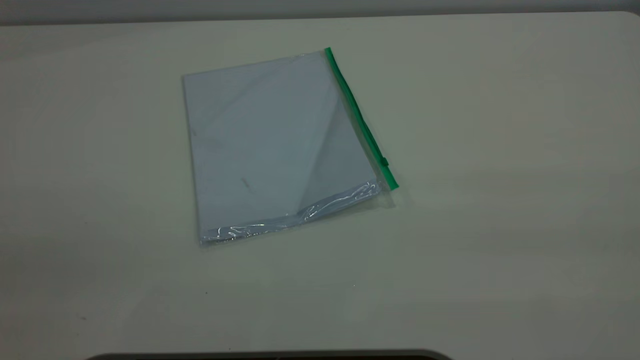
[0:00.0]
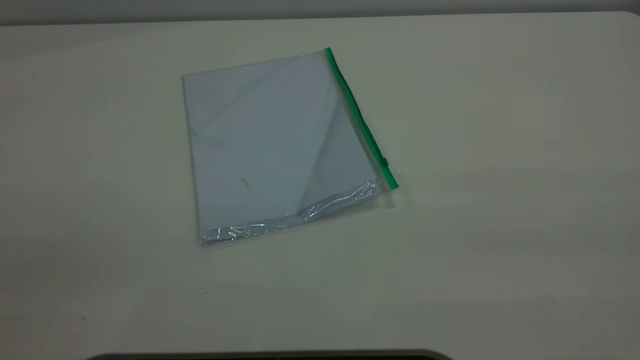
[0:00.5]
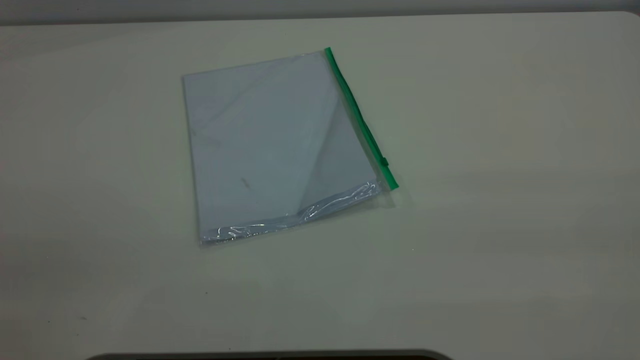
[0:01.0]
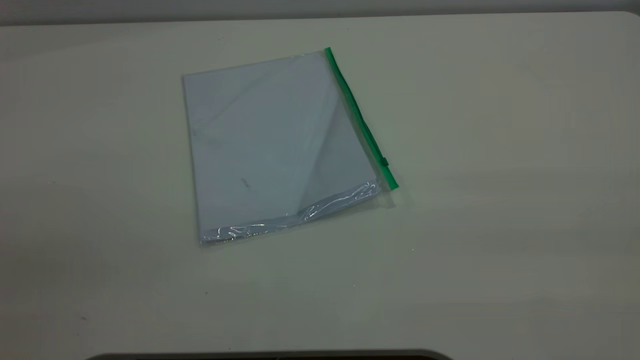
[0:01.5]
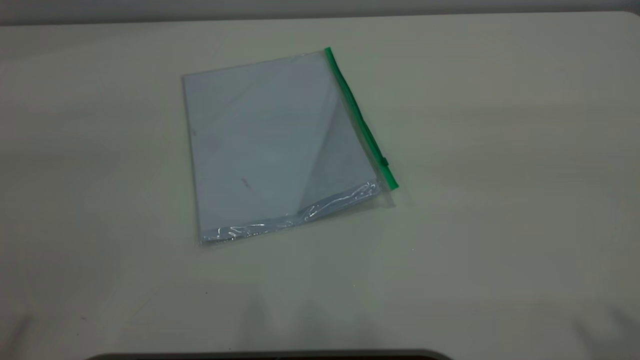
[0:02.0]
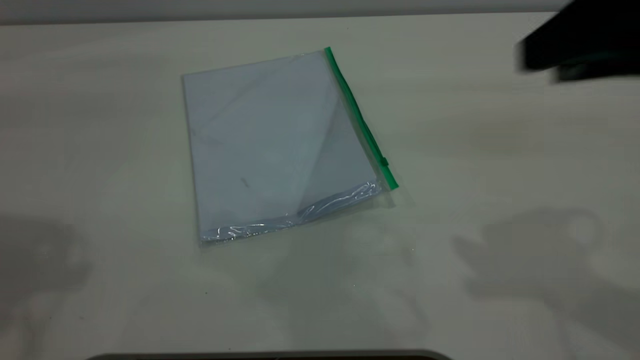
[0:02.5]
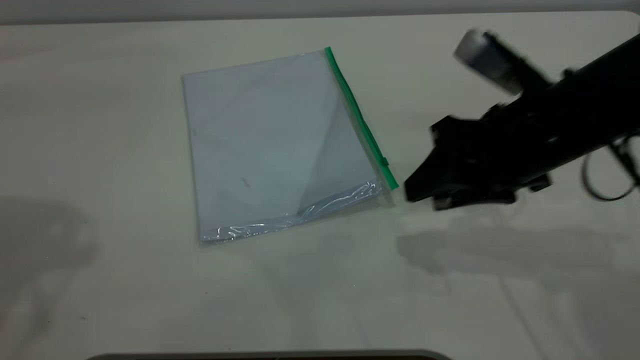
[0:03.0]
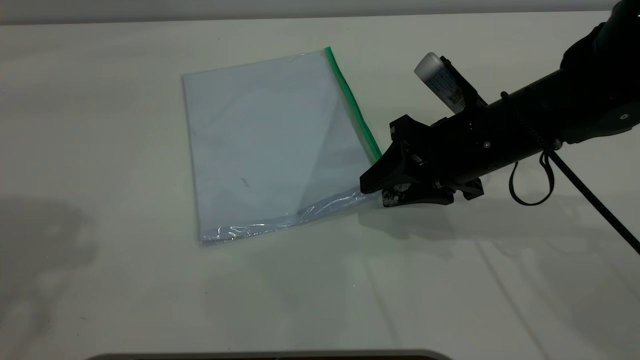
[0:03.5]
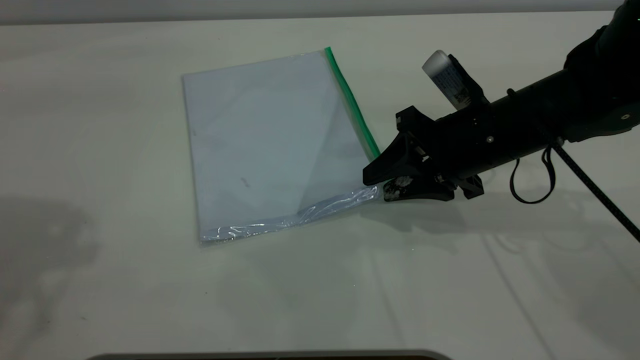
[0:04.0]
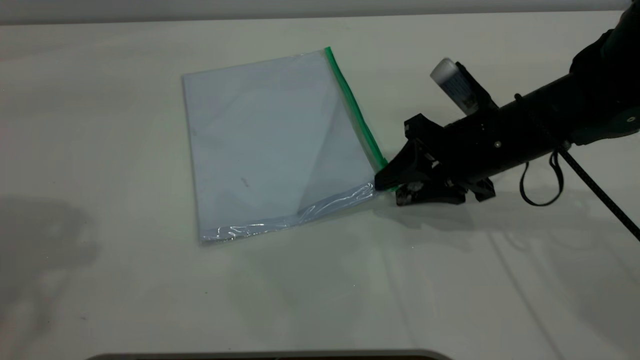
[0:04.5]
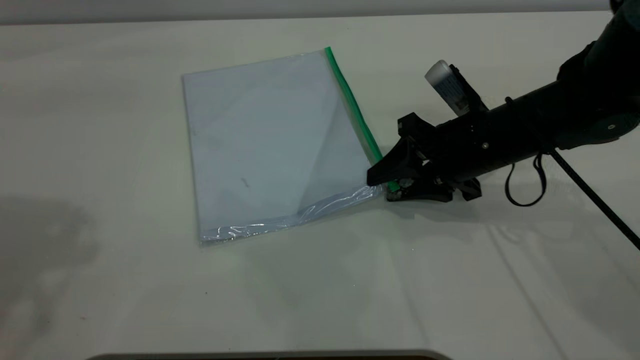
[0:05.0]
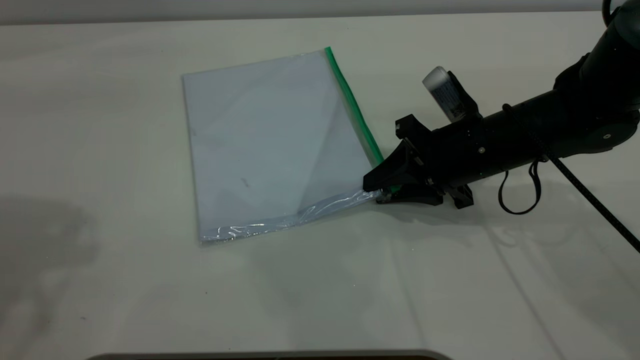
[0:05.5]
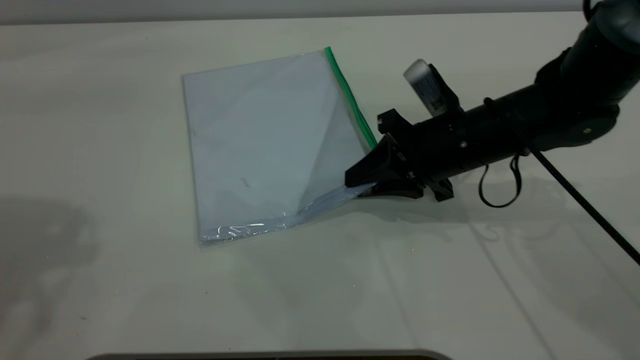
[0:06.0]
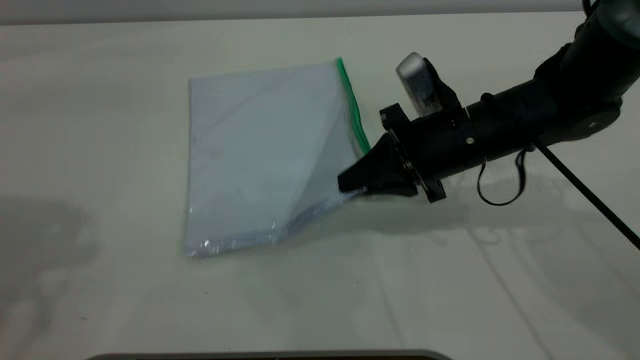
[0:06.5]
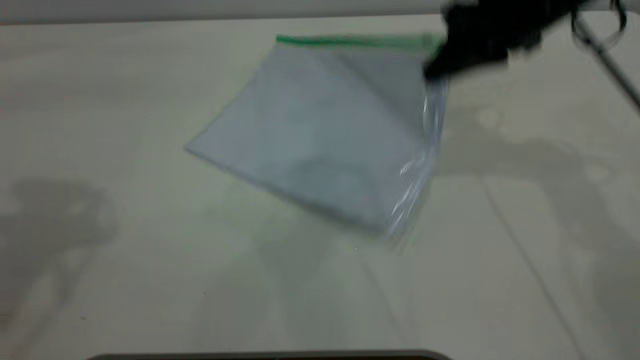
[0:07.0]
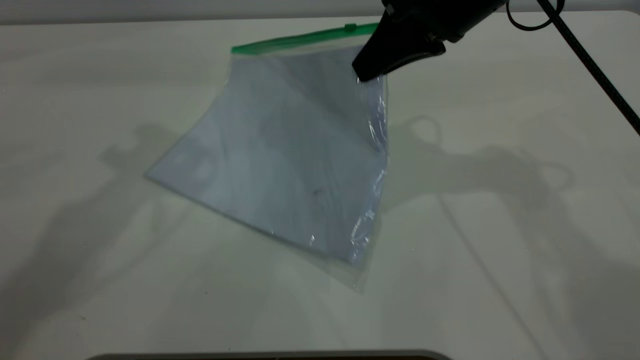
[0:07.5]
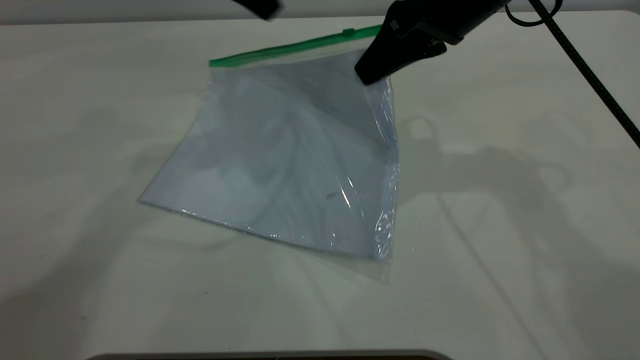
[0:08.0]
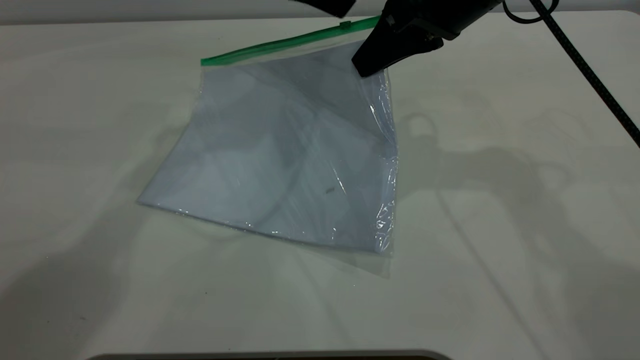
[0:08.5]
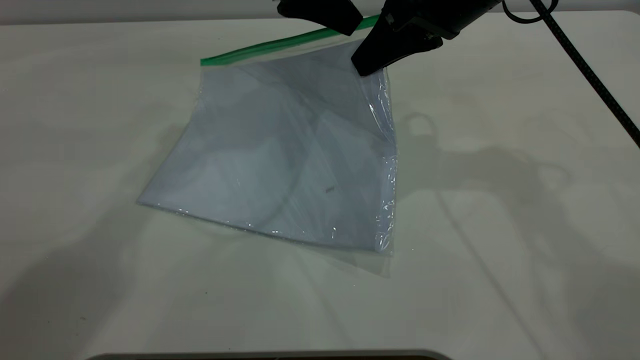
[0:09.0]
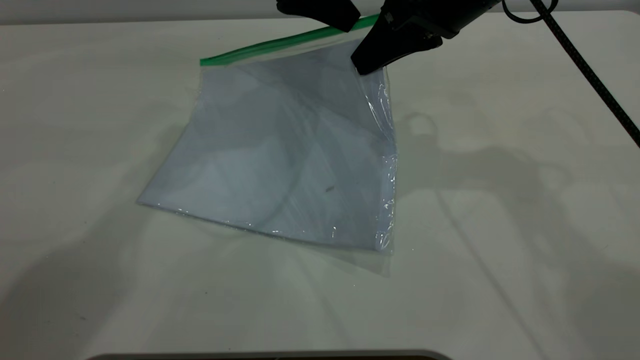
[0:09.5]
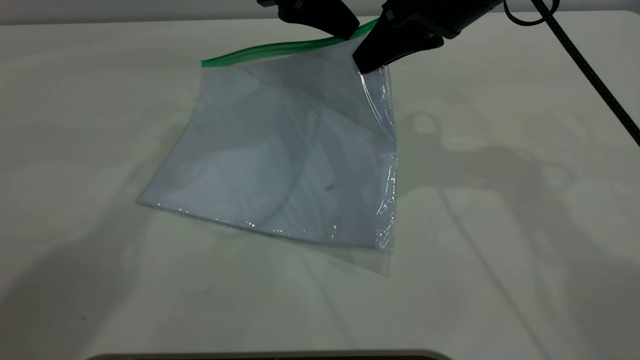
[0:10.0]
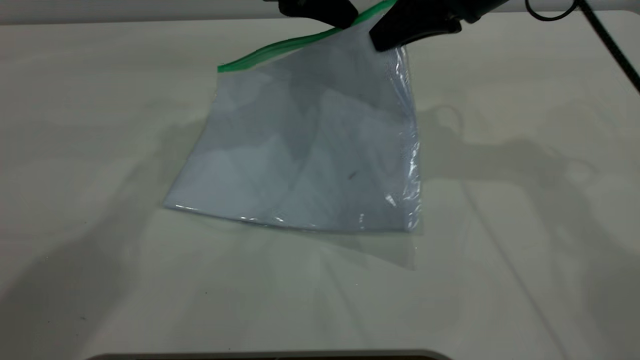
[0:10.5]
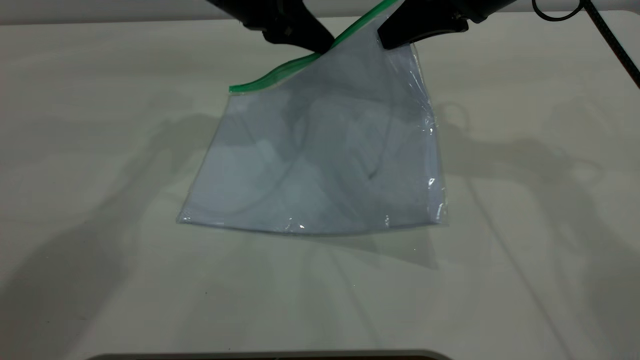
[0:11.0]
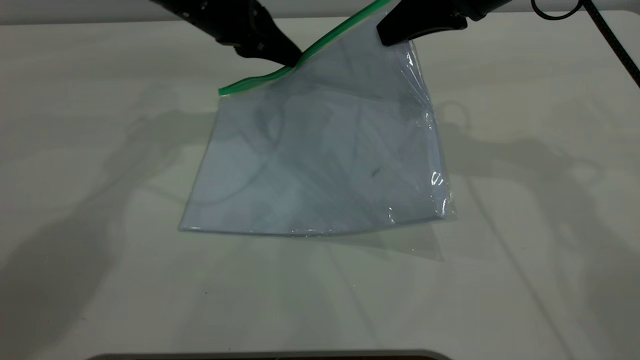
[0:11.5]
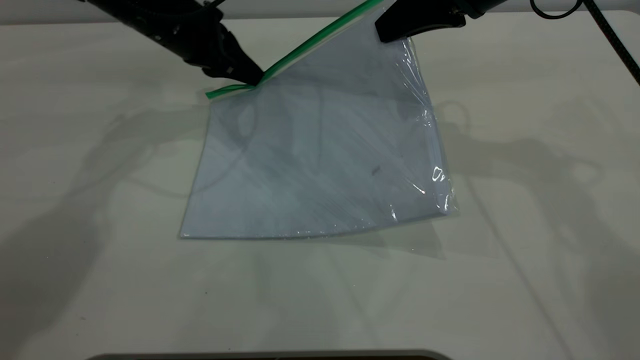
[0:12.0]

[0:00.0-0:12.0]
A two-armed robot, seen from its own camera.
Step, 0.0 to 6.0 s: Pick up the transparent plastic bag with the right gripper.
2.0 to 4.0 s: The right gripper travels downward and forward by about 35 cm, while the left gripper goes about 15 cm forward.
4.0 to 6.0 s: The right gripper closes up.
6.0 to 8.0 s: The left gripper goes approximately 25 cm to the right, forward and downward, while the right gripper goes some 15 cm upward, and closes up.
8.0 to 10.0 s: The left gripper travels downward by about 5 cm, and closes its fingers.
10.0 to 12.0 s: The left gripper goes approximately 15 cm to the left and downward.

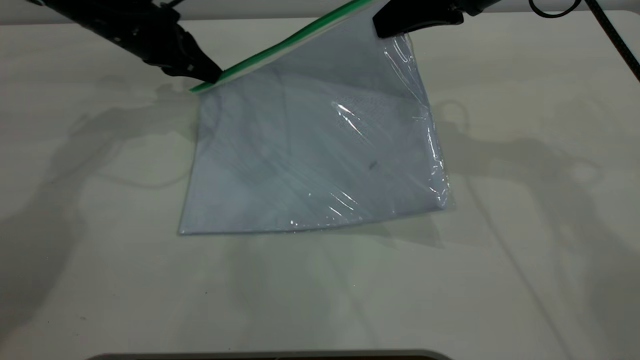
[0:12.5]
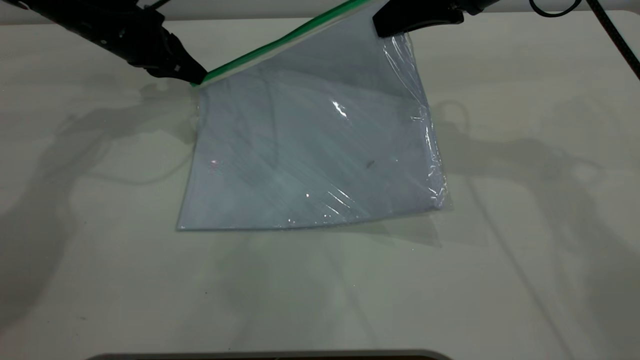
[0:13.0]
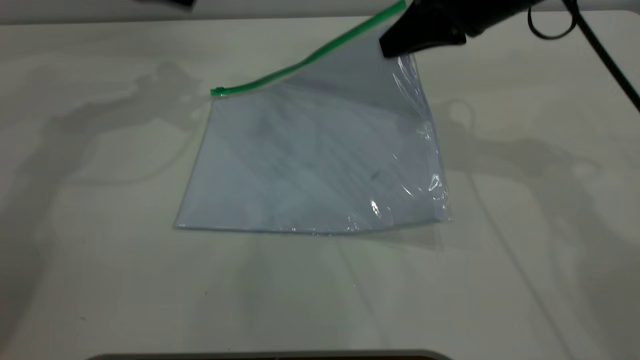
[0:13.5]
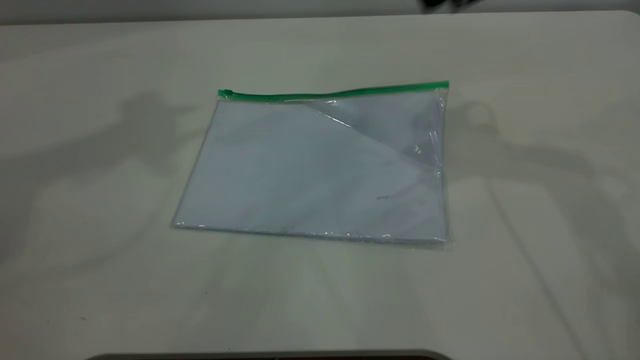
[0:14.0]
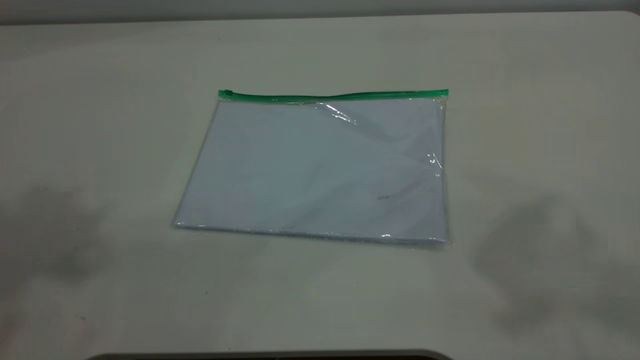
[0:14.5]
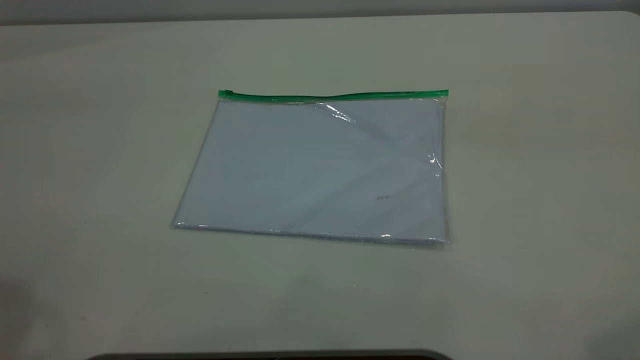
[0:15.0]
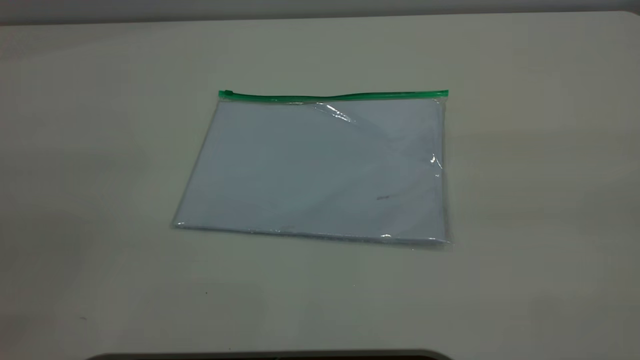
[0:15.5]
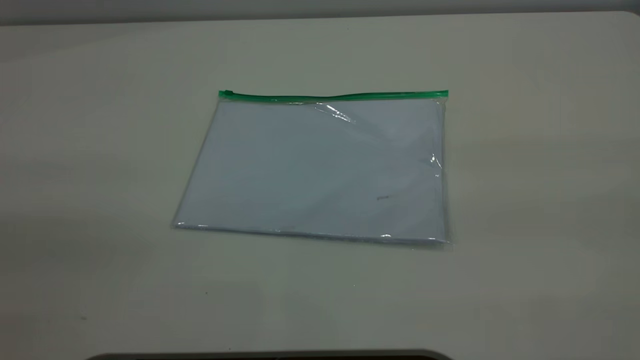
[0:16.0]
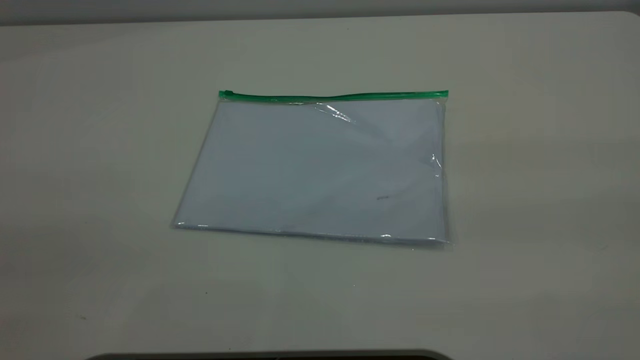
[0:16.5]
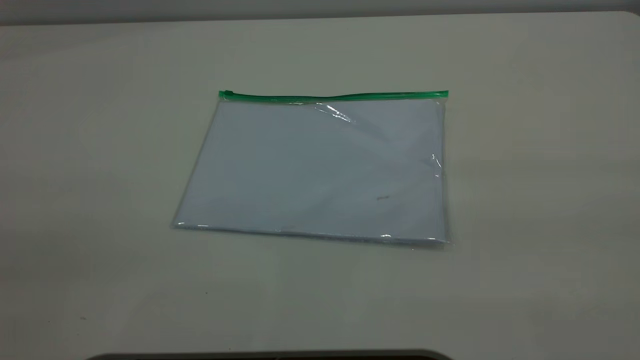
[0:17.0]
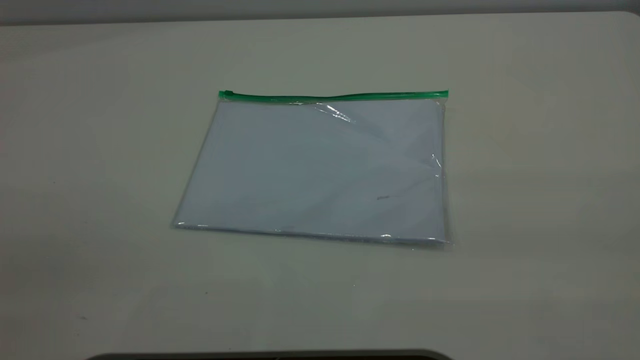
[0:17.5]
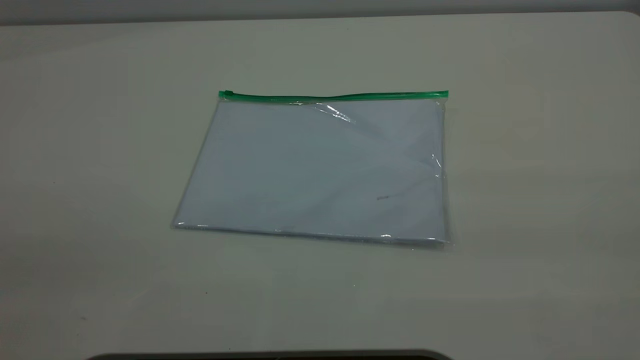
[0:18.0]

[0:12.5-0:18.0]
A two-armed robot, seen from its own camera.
12.5 to 14.5 s: The right gripper heads upward and backward, covering some 35 cm, and opens its fingers; the left gripper goes some 50 cm upward and backward, and opens.

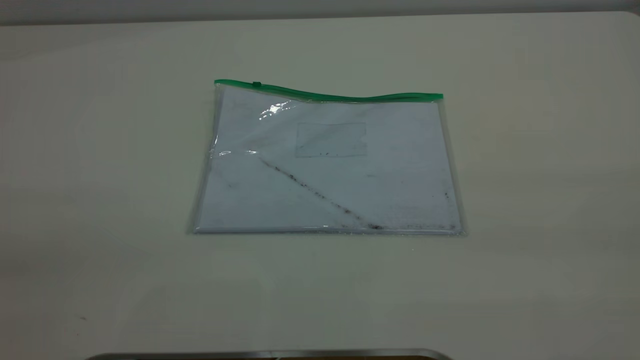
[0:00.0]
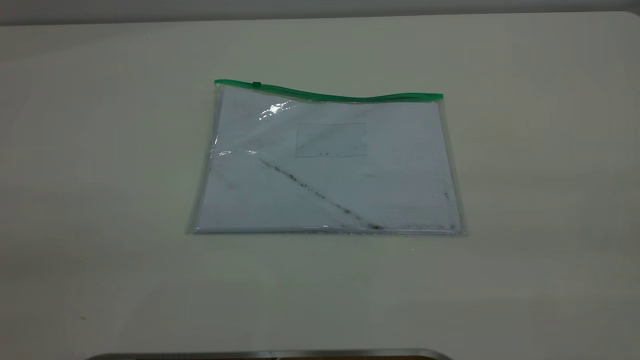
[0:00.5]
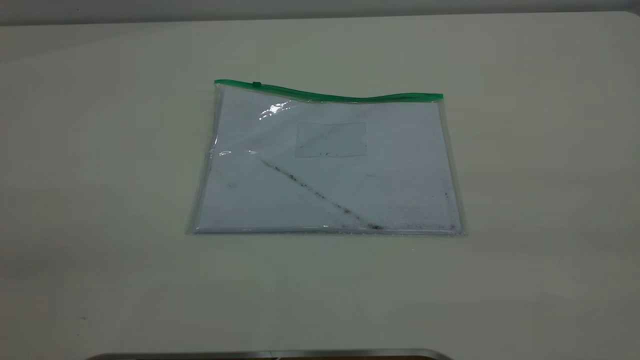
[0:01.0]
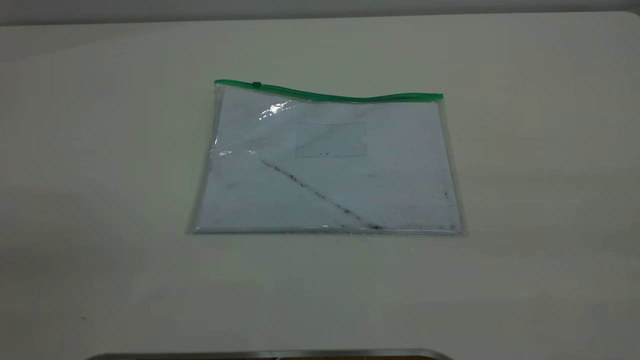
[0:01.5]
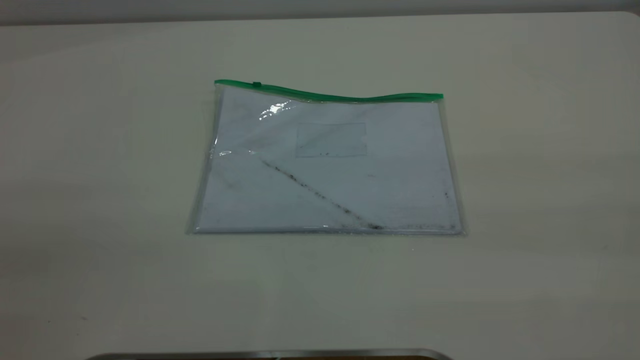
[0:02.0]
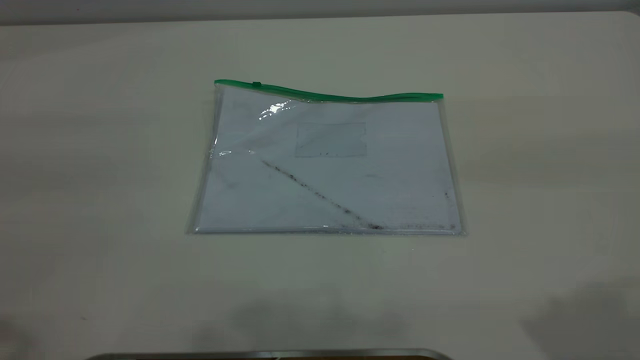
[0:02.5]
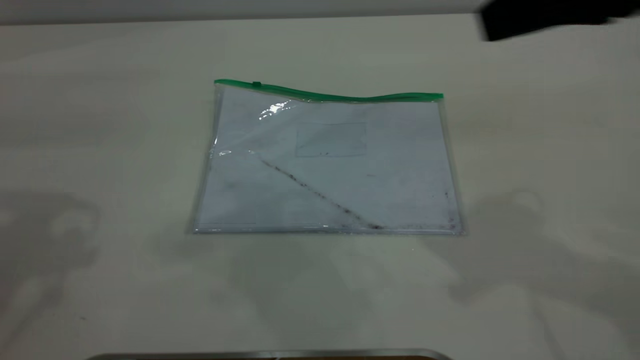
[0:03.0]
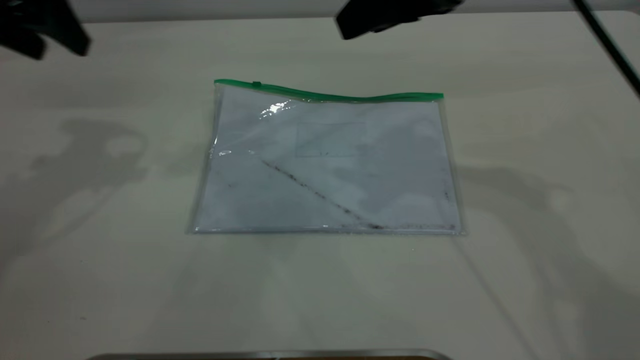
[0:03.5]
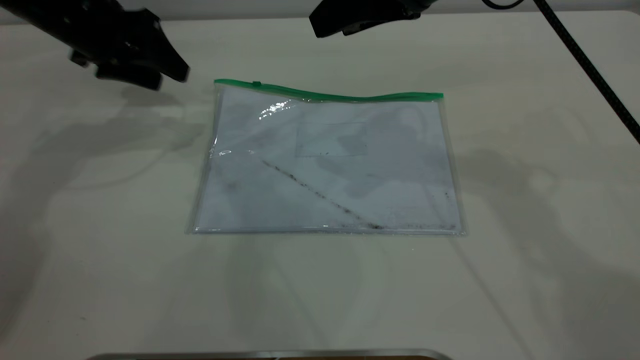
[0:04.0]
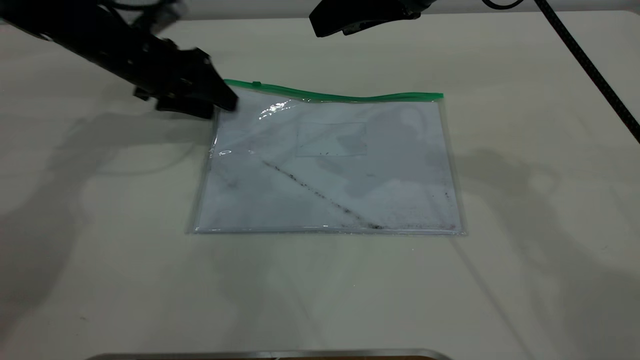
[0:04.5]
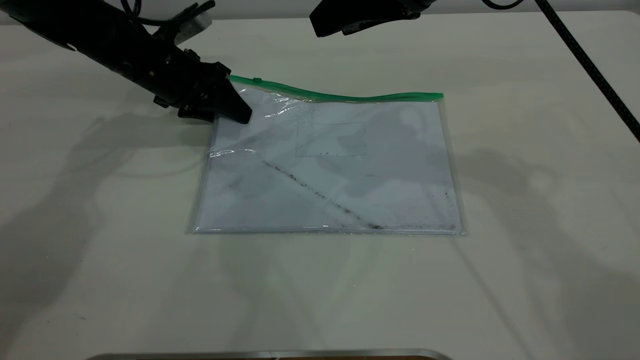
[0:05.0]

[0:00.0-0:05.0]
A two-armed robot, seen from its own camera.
2.5 to 5.0 s: The left gripper heads forward and downward, covering approximately 40 cm, and closes its fingers, while the right gripper is displaced forward, to the left and downward by approximately 30 cm.
